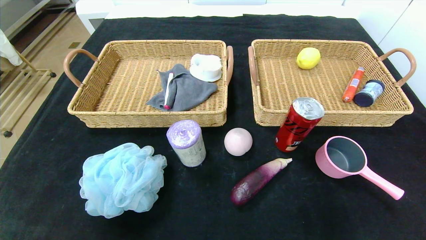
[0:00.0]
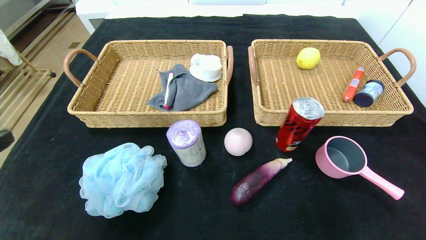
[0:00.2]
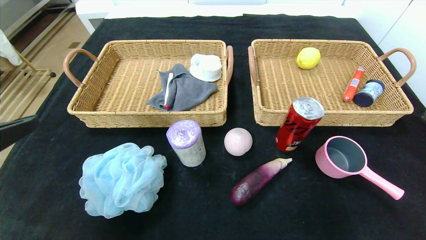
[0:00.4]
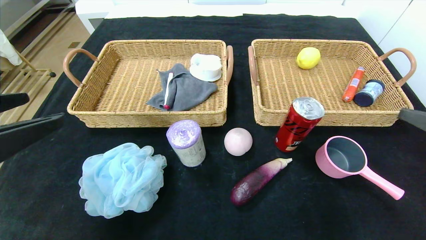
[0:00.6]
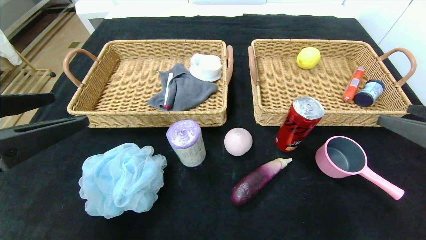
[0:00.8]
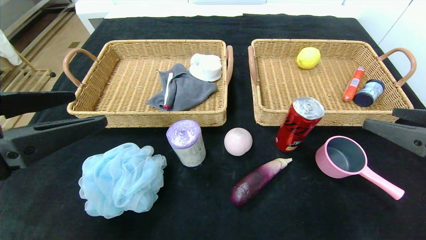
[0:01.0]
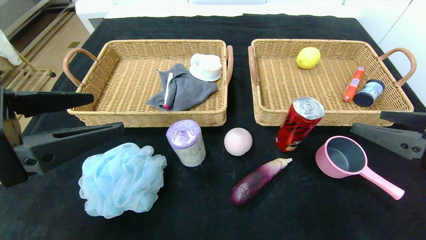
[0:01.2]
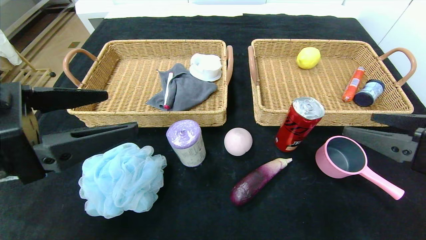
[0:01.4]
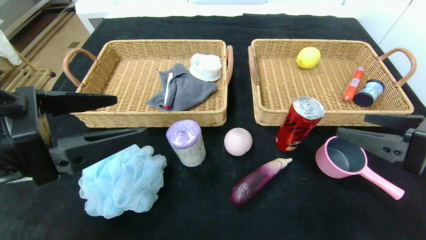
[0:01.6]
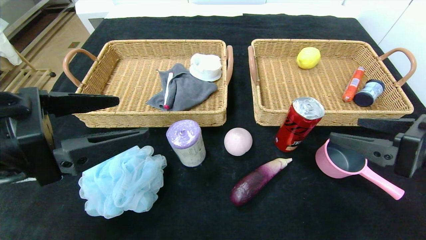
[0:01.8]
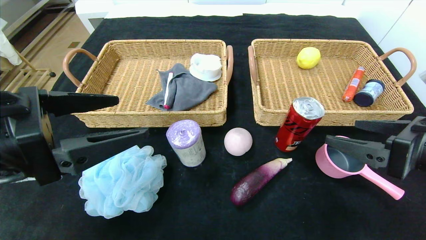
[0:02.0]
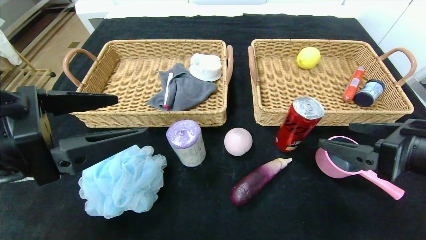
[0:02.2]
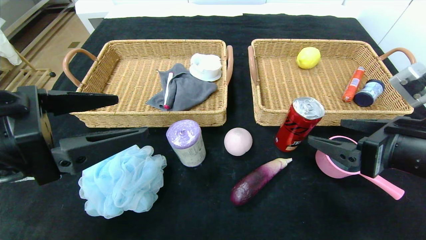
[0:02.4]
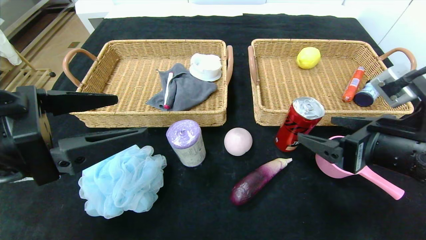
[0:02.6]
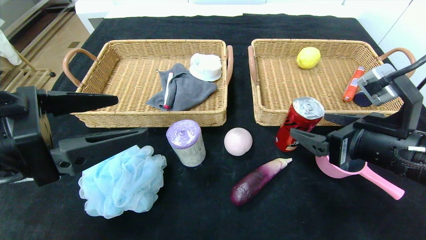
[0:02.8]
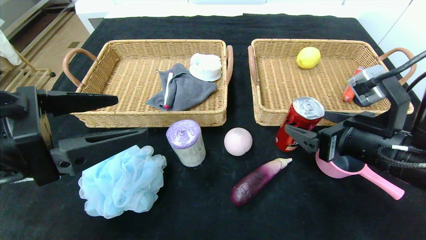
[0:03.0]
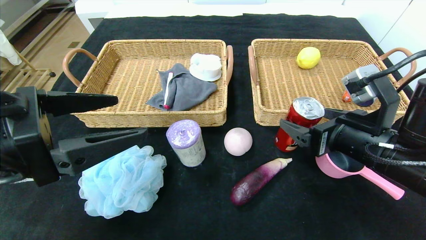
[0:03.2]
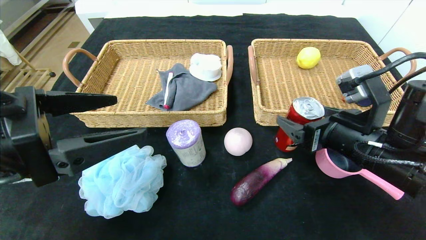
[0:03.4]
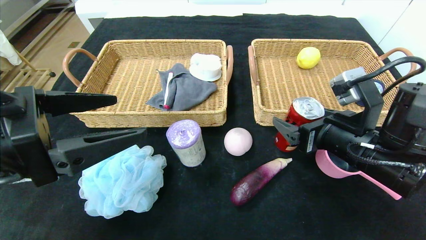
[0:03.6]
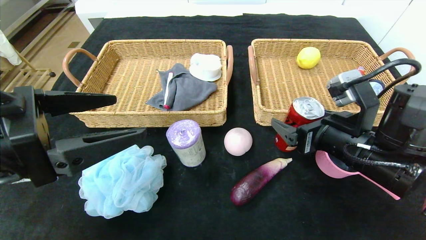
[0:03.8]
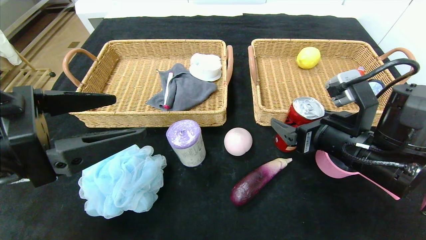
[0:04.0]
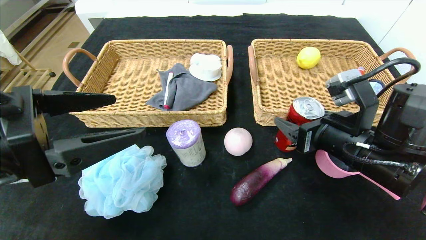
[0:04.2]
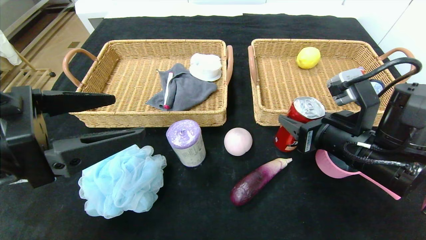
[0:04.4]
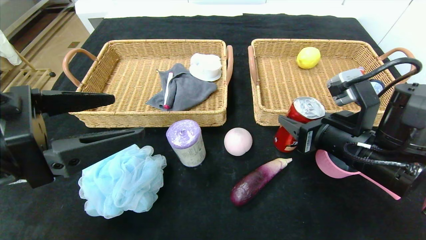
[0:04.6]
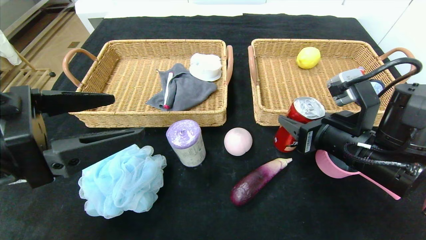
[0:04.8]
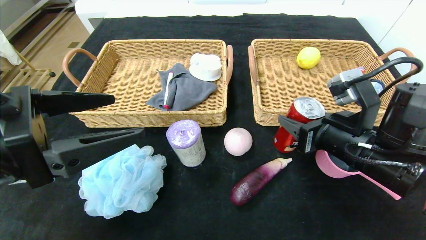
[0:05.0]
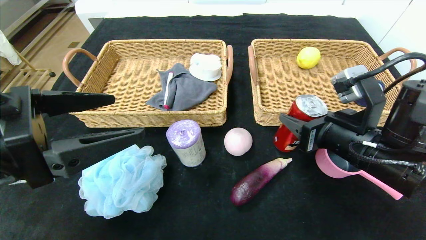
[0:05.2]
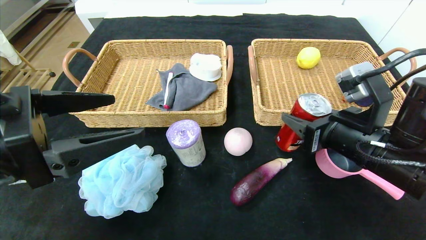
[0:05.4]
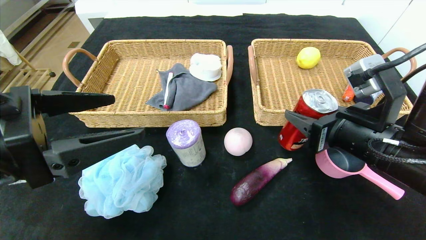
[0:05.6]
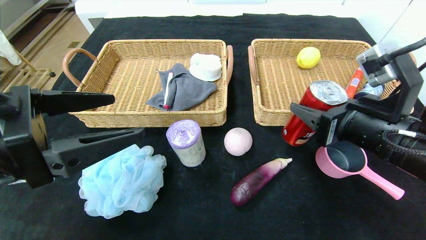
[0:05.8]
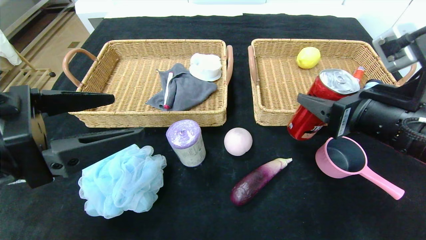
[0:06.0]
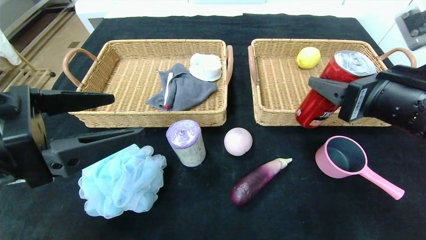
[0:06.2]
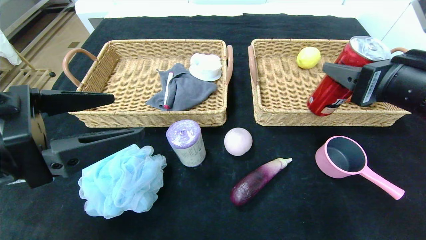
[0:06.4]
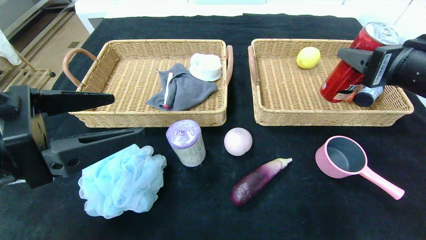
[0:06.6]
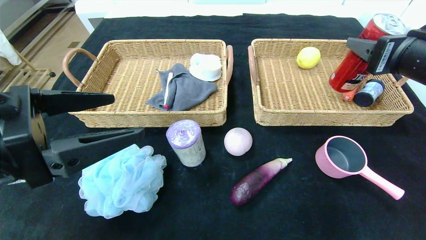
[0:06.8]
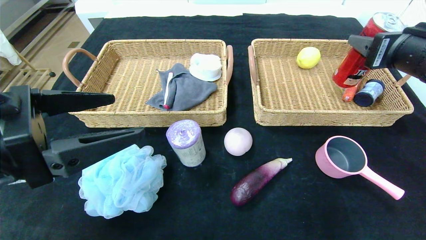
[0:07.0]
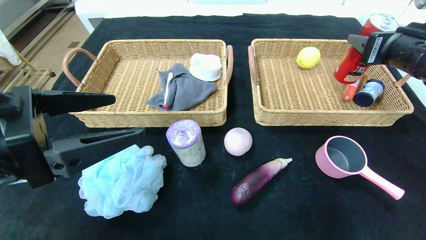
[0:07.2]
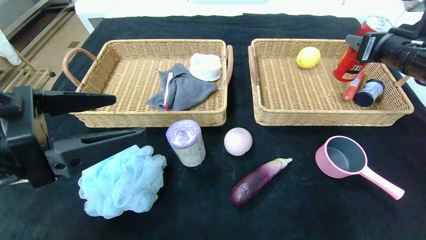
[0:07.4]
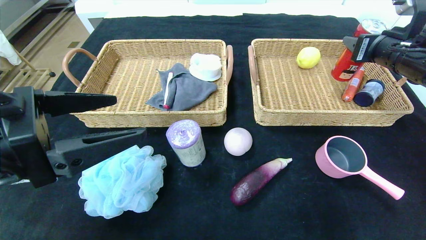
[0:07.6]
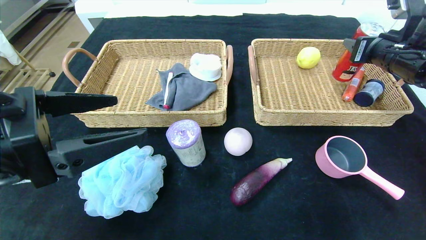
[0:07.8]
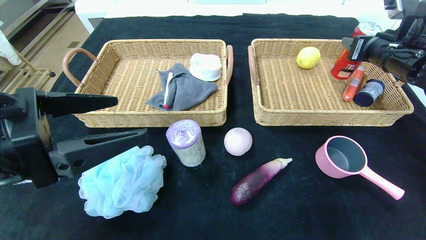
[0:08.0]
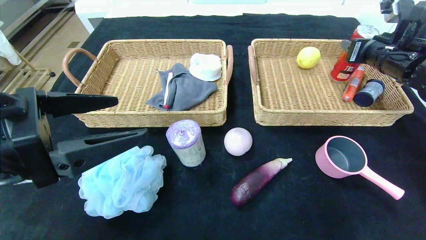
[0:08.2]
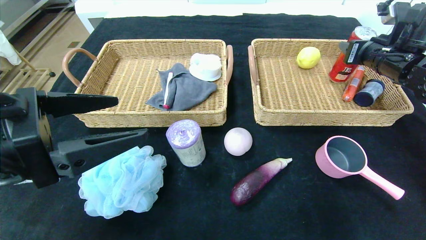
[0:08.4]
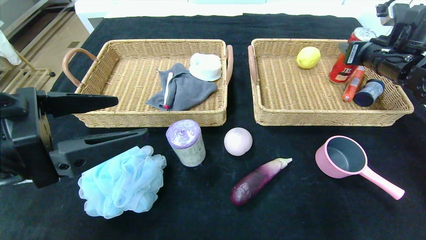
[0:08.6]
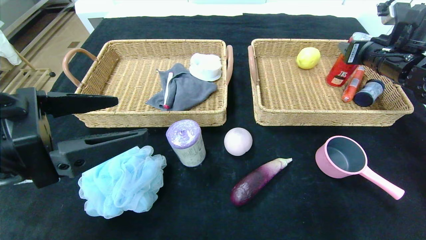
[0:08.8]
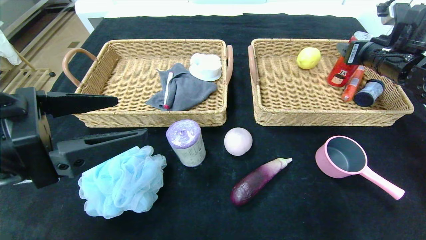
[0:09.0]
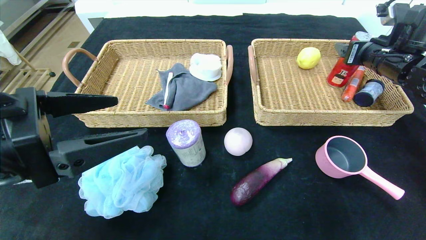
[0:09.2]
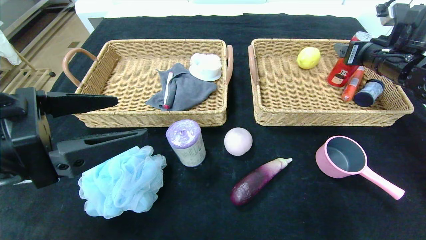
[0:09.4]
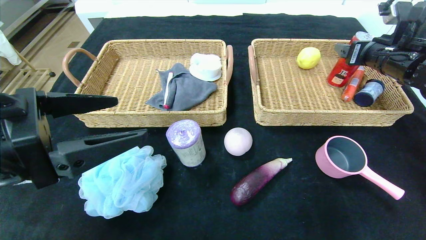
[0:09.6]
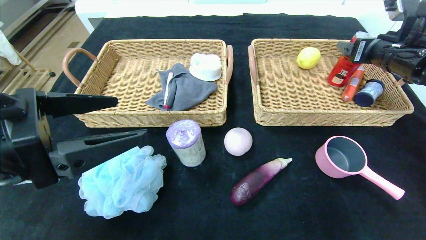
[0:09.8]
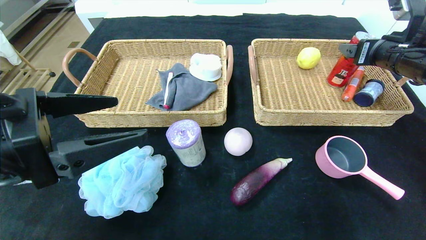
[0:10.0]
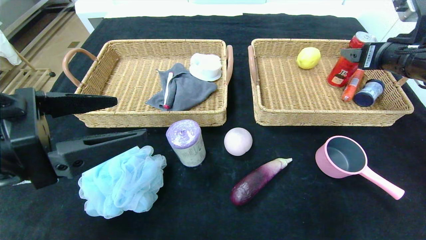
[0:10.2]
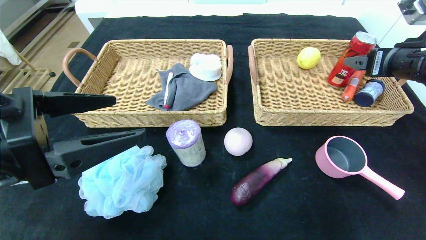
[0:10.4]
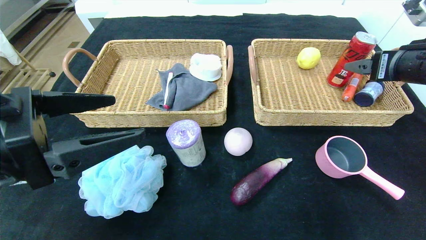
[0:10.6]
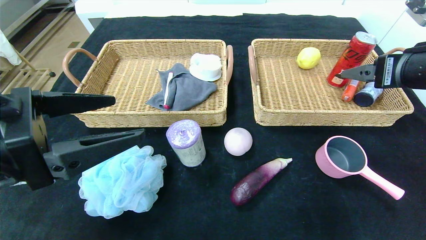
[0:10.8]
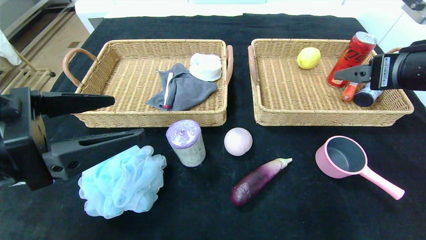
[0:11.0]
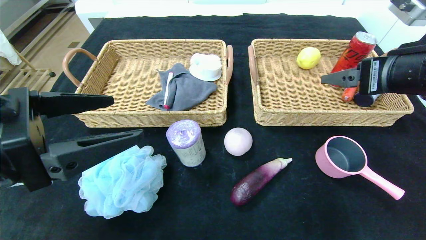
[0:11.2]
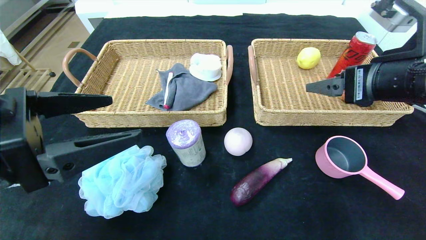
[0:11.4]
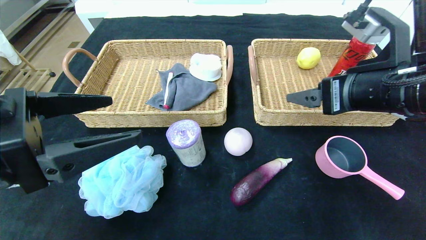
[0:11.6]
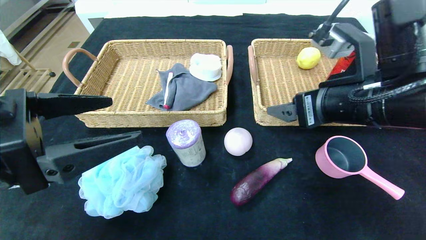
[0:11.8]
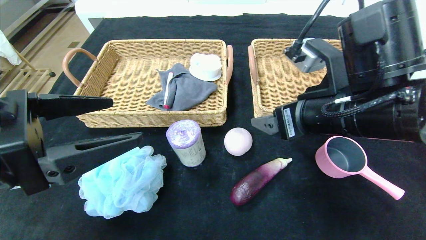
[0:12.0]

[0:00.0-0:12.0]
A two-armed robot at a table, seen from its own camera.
Step, 0:00.0 to 0:10.4: Grasp the canned cola and put it in the right basket.
0:00.0 to 0:01.6: The right gripper shifts about 15 cm forward and to the left. The left gripper heads forward and to the right, covering some 15 cm.
0:01.6 to 0:03.0: The right gripper shifts roughly 5 cm to the left.
0:03.0 to 0:04.4: The right gripper closes.
0:04.4 to 0:06.0: The right gripper goes approximately 5 cm upward.
0:06.0 to 0:07.6: The right gripper shifts about 20 cm forward, to the right and upward.
0:07.6 to 0:09.0: The right gripper goes roughly 5 cm forward.
0:09.0 to 0:10.4: The right gripper heads backward, covering some 10 cm.
0:10.4 to 0:12.0: The right gripper moves to the left and backward, roughly 20 cm.

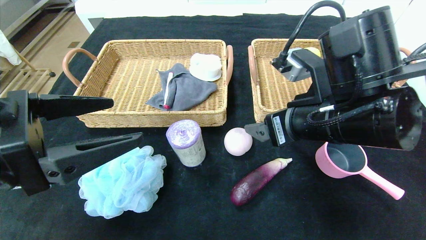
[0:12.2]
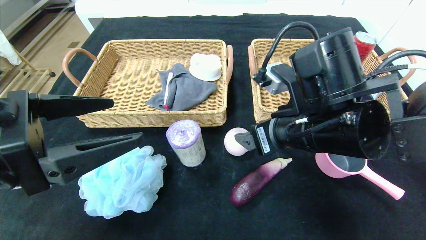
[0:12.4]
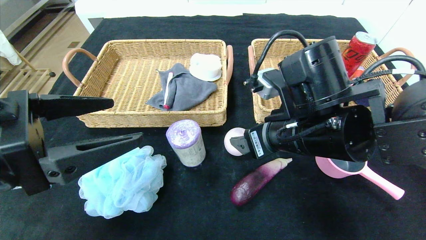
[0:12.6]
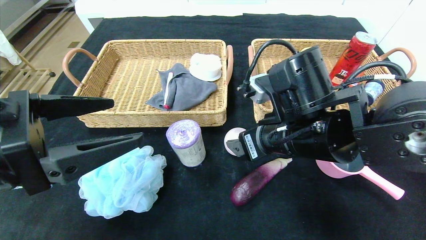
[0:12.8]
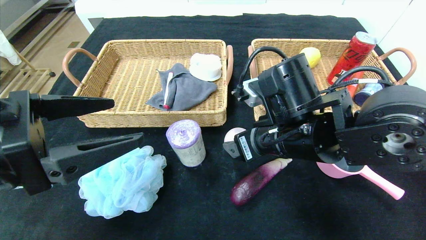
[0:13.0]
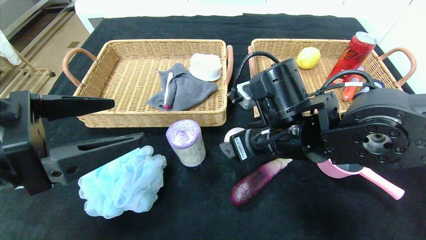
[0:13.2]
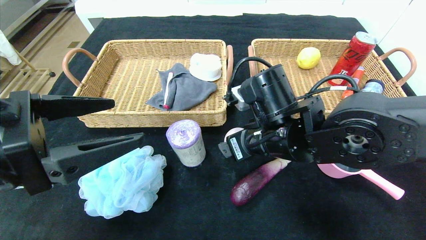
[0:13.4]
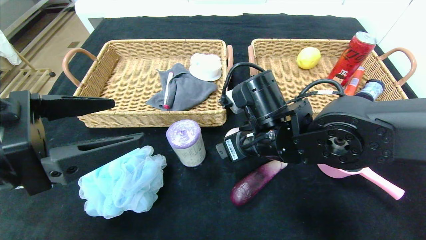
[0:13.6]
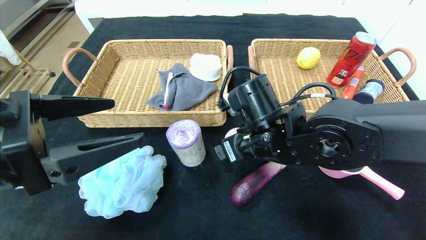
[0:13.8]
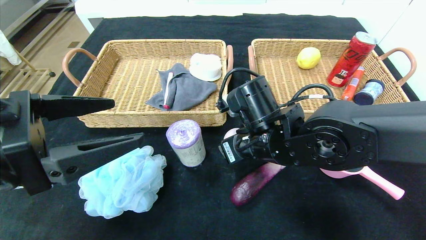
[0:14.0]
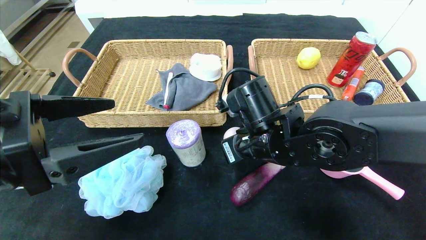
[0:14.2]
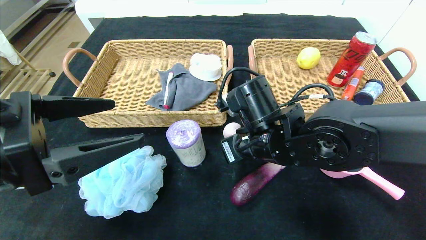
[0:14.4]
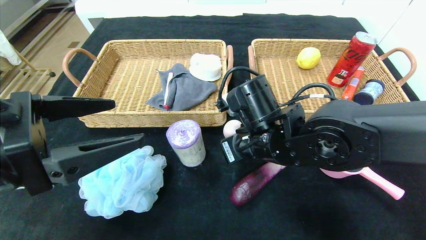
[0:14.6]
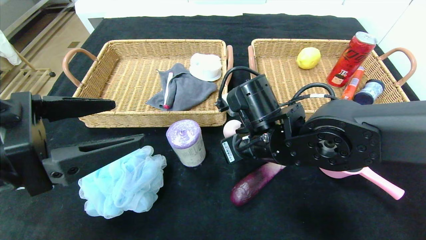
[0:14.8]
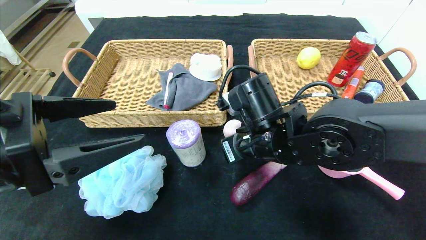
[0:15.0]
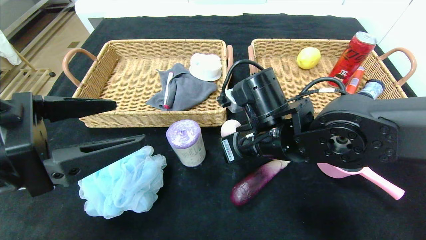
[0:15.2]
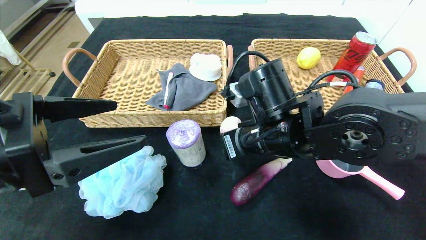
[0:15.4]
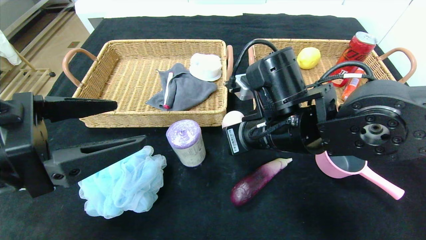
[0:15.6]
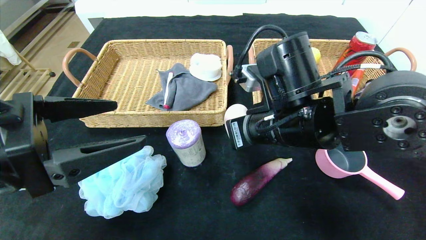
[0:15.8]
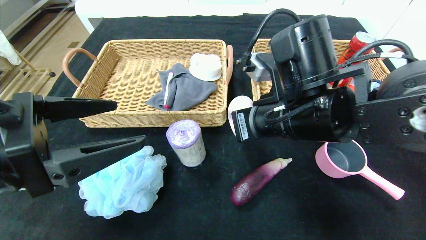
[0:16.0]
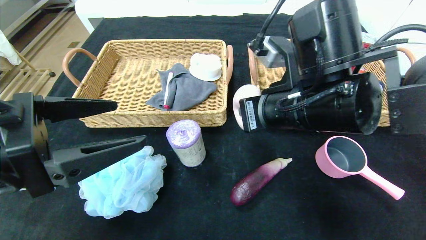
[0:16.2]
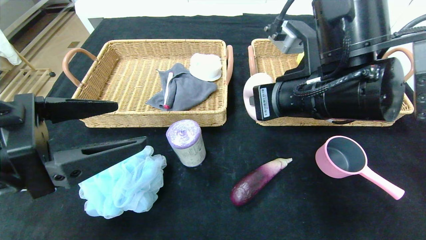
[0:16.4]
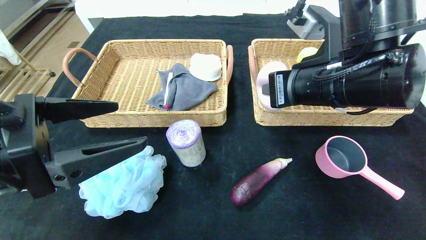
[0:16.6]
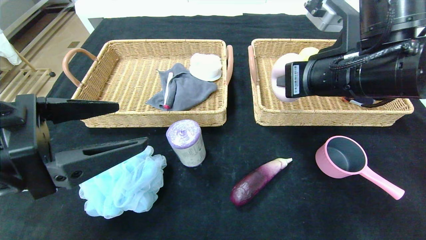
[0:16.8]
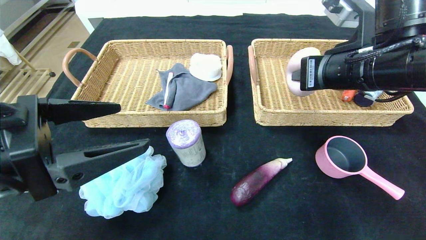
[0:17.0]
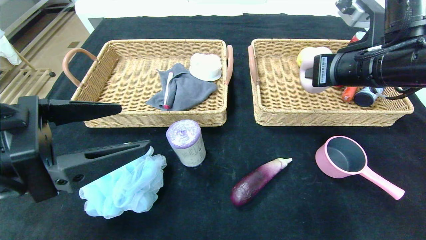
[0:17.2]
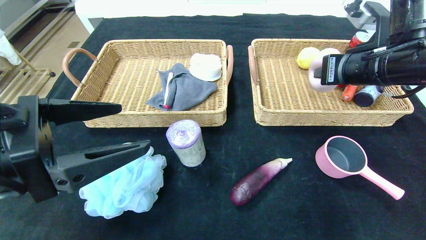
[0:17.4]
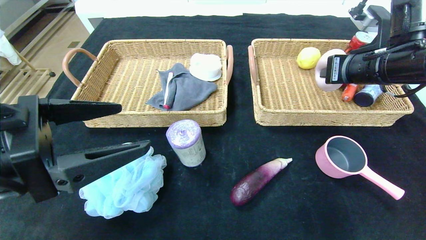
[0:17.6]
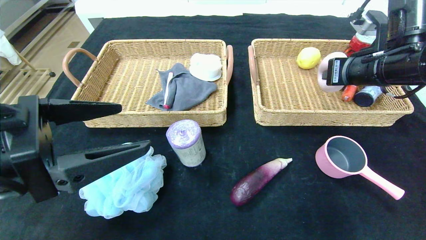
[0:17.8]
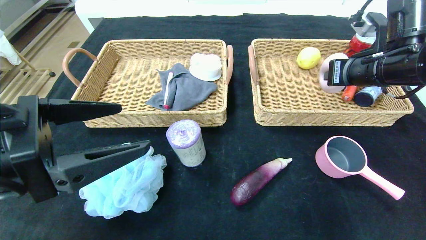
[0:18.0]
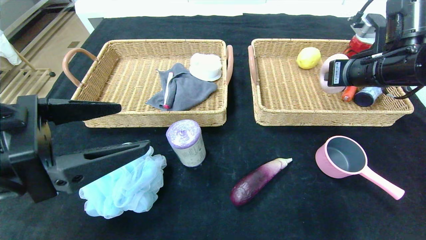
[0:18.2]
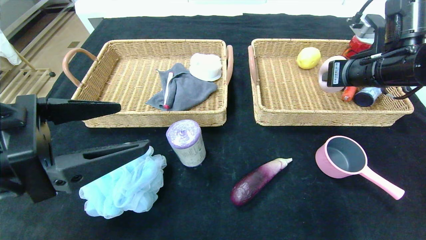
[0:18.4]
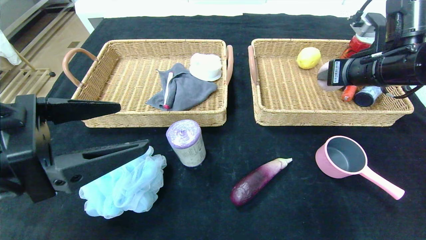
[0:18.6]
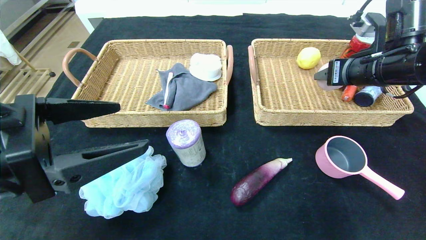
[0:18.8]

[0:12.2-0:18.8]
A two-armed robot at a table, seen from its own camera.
0:12.2 to 0:13.8: The right gripper travels to the left and downward by some 10 cm.
0:13.8 to 0:15.4: The right gripper closes up.
0:15.4 to 0:17.2: The right gripper shifts approximately 20 cm to the right and upward.
0:17.2 to 0:18.8: The right gripper ends up approximately 5 cm from where it was, and opens.
